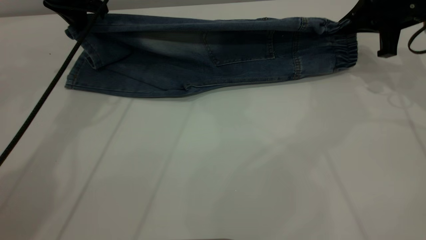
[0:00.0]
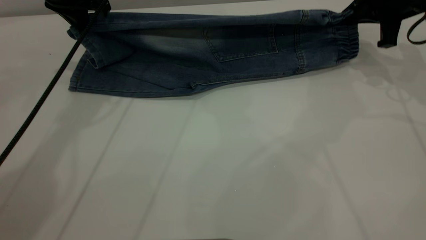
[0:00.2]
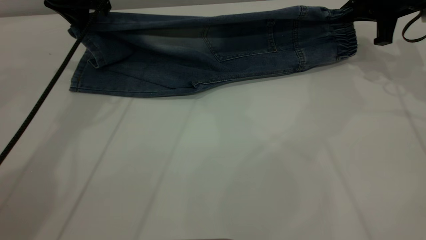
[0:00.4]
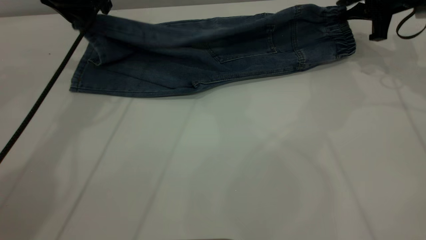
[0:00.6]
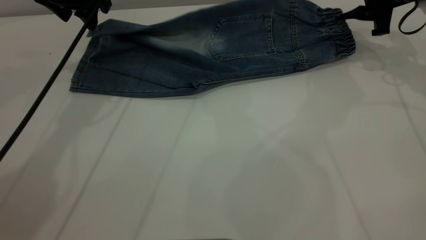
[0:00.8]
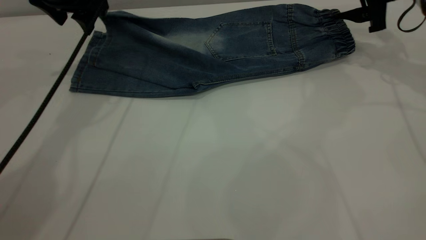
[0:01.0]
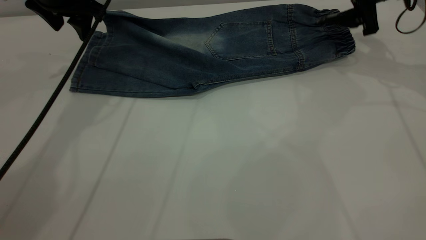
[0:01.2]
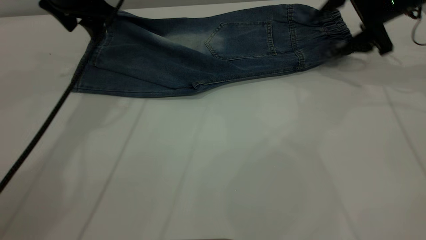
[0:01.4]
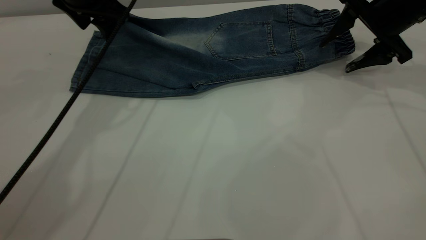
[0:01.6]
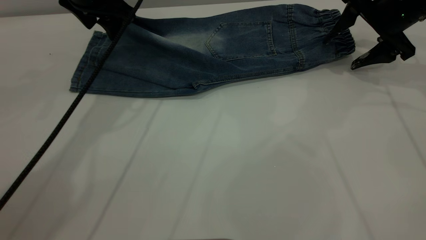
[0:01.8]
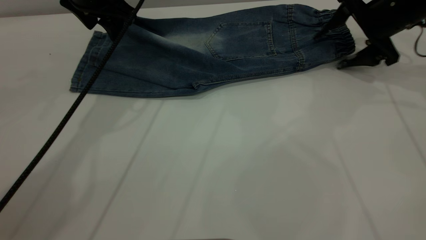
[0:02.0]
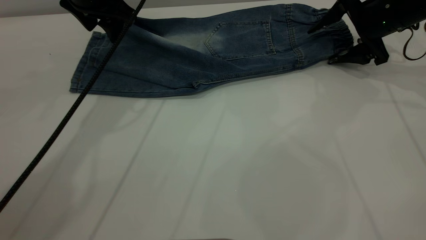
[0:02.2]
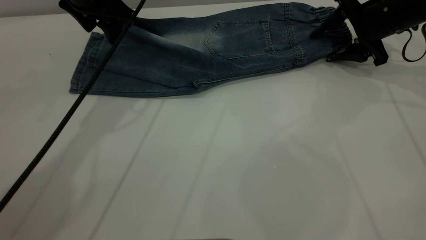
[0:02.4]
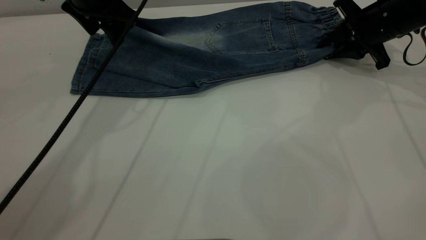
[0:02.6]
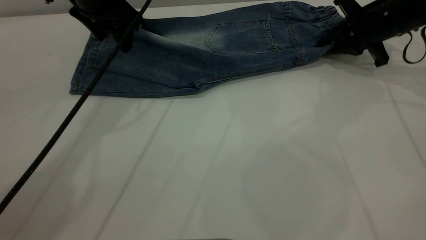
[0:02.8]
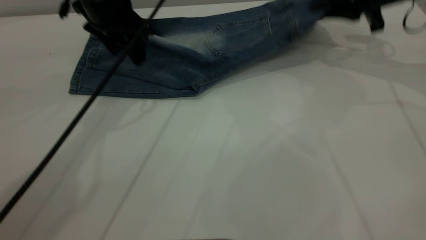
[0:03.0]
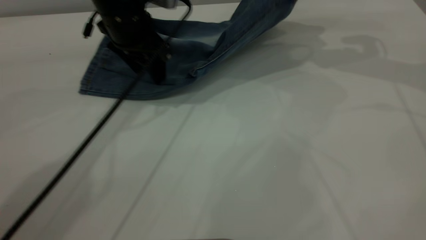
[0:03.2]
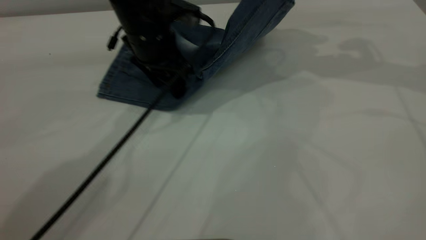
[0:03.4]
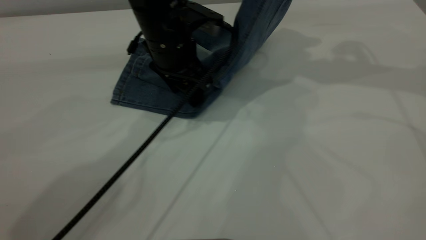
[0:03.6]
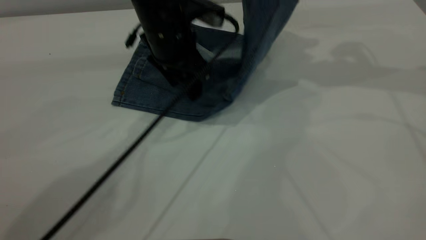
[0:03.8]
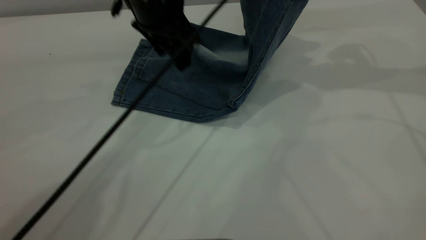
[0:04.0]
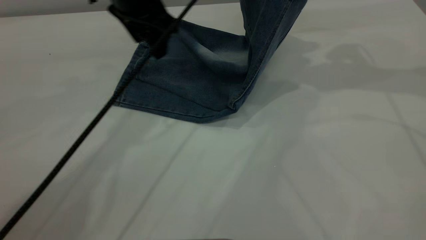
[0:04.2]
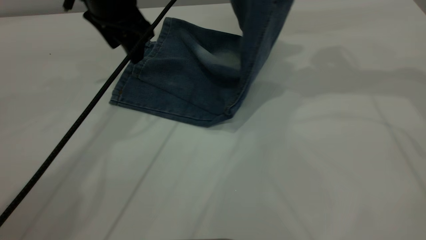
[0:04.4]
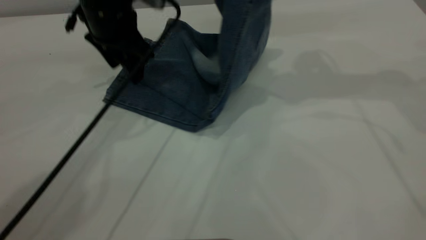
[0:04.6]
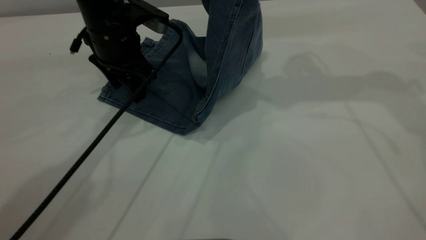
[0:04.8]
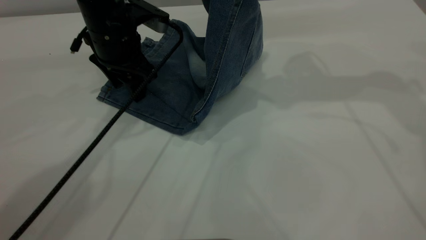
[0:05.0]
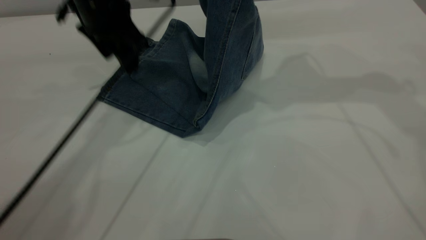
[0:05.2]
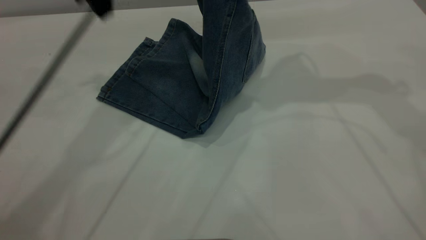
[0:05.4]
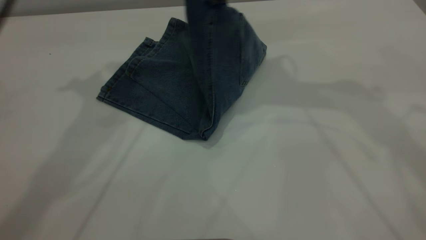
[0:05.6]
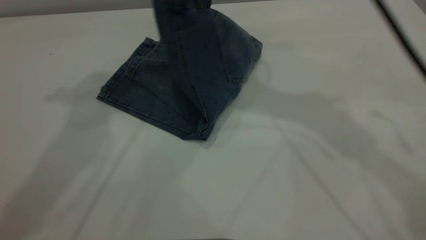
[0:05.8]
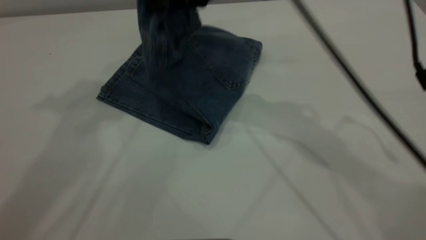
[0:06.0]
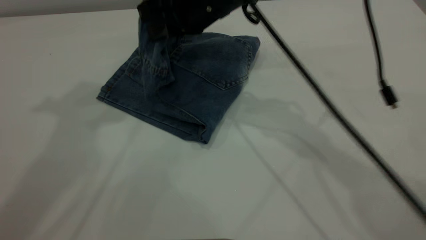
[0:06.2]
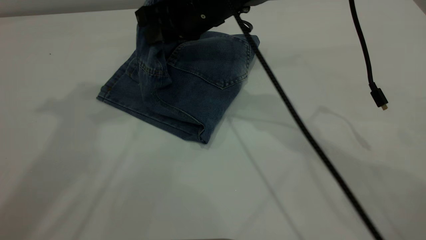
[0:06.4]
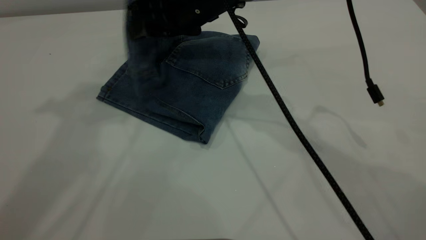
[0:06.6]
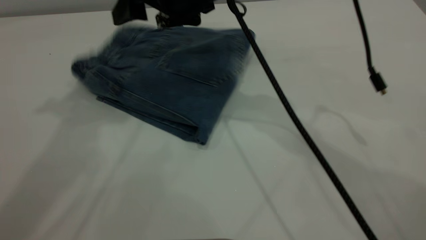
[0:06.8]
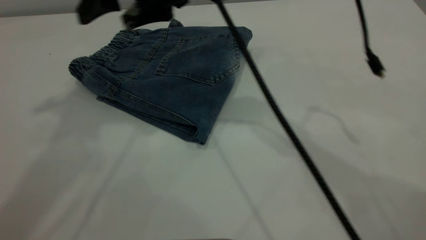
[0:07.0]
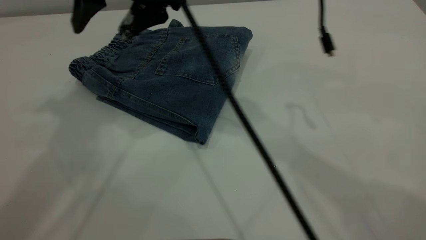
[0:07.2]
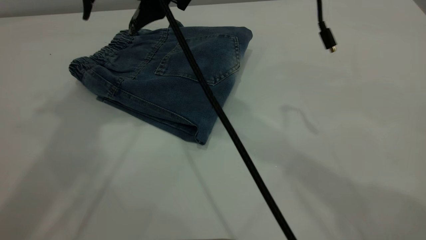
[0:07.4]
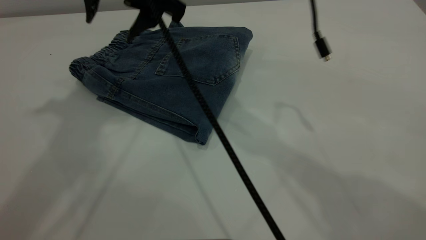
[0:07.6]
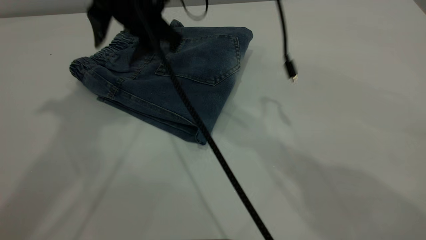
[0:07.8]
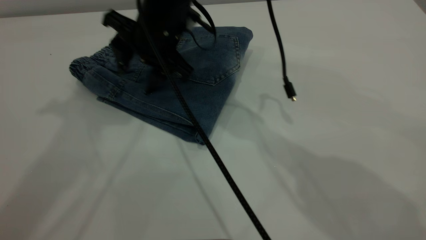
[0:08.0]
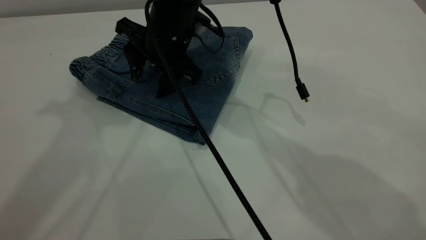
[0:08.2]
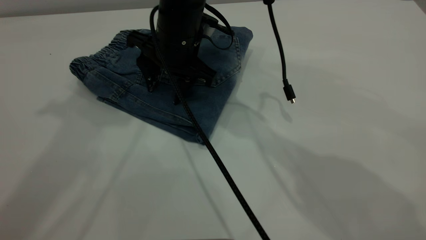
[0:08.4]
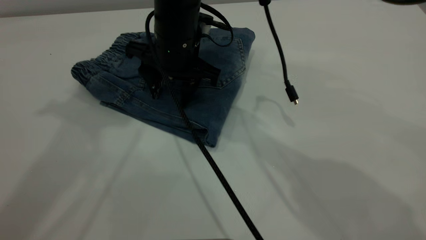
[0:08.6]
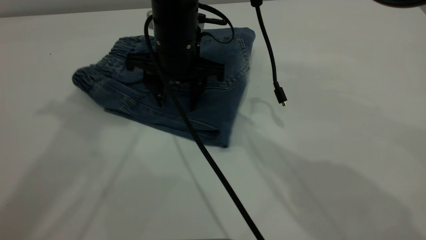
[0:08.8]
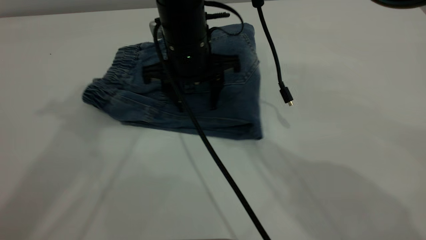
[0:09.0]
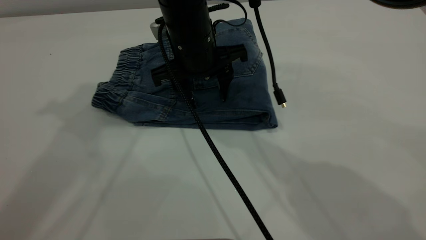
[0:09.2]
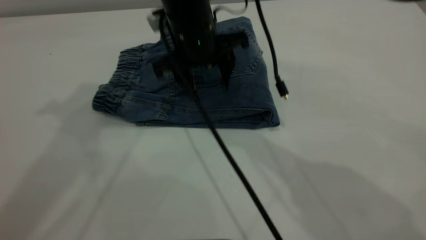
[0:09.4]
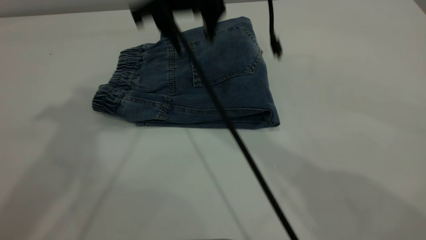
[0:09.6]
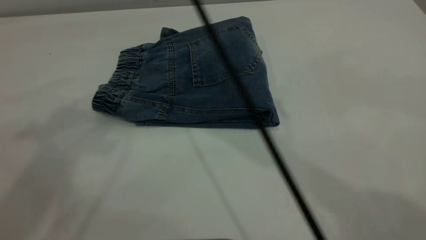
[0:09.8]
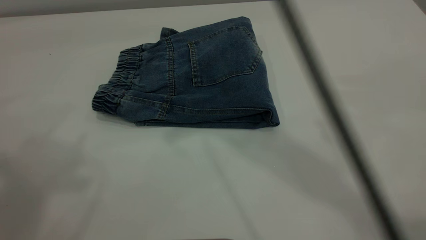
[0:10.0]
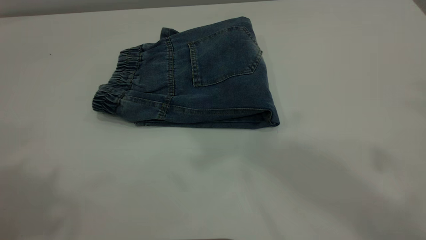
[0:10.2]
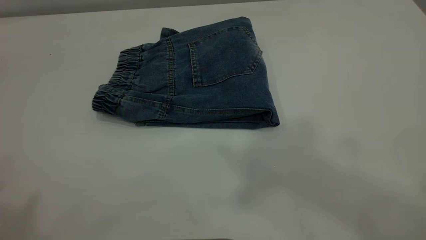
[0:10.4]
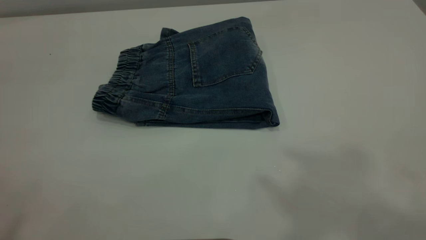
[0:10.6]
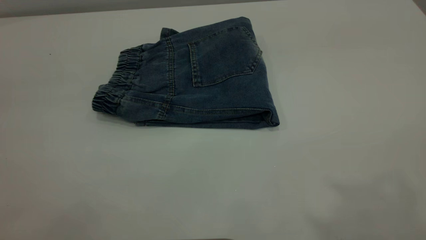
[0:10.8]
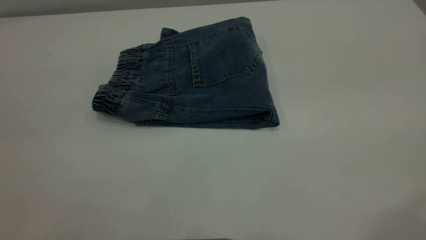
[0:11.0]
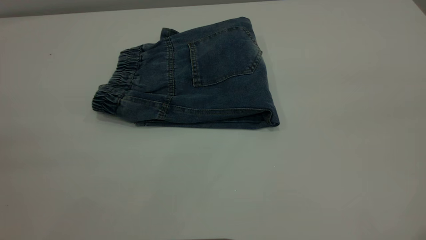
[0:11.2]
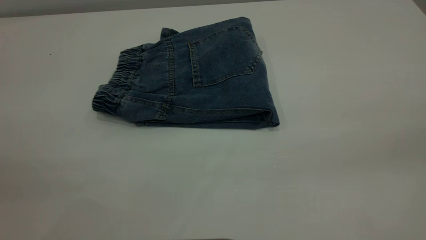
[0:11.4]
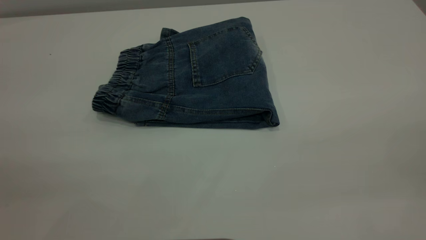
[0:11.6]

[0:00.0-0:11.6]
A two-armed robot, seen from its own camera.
Step, 0:01.2 to 0:07.0: Fold your pants from right to left.
0:00.0 to 0:01.4: The left gripper opens. The right gripper opens its fingers.
0:01.4 to 0:02.8: The right gripper closes its fingers.
0:02.8 to 0:04.4: The right gripper shifts roughly 20 cm upward and to the left, while the left gripper moves roughly 10 cm to the right and comes back.
0:04.4 to 0:05.8: The left gripper moves upward, roughly 25 cm, while the right gripper shifts some 15 cm to the left.
0:05.8 to 0:07.2: The right gripper shifts some 10 cm to the left, and opens its fingers.
0:07.2 to 0:08.8: The right gripper heads downward, covering some 15 cm.
0:08.8 to 0:10.2: The left gripper heads backward and upward, covering roughly 20 cm; the right gripper is displaced upward by roughly 40 cm.
